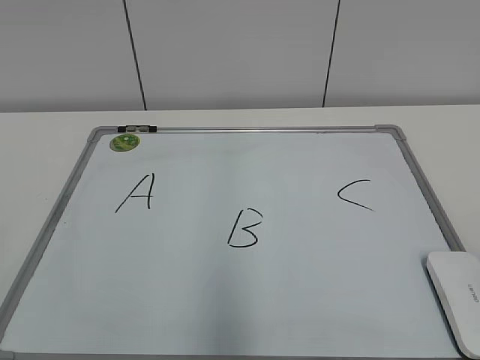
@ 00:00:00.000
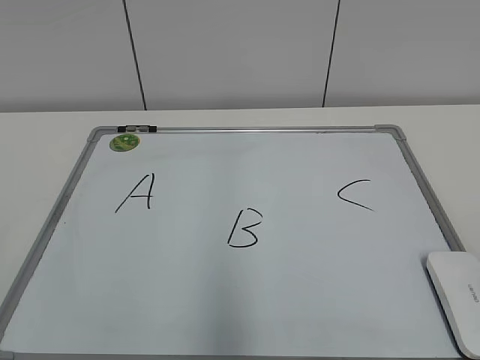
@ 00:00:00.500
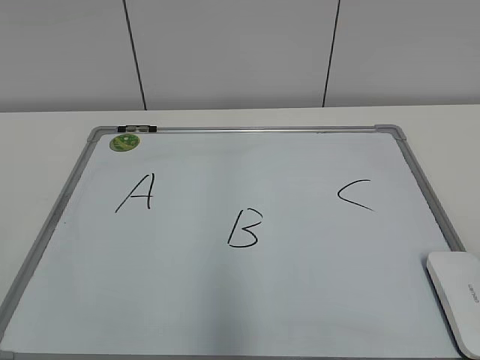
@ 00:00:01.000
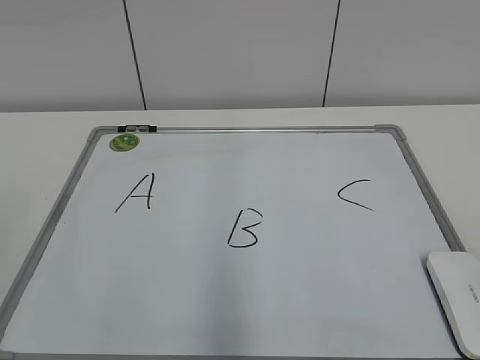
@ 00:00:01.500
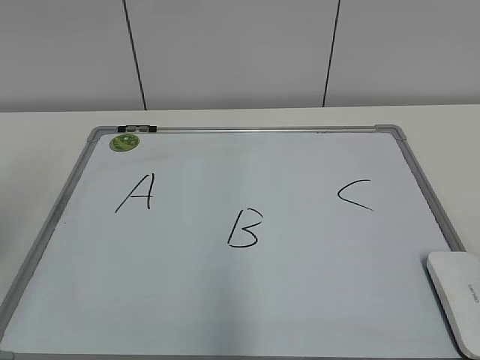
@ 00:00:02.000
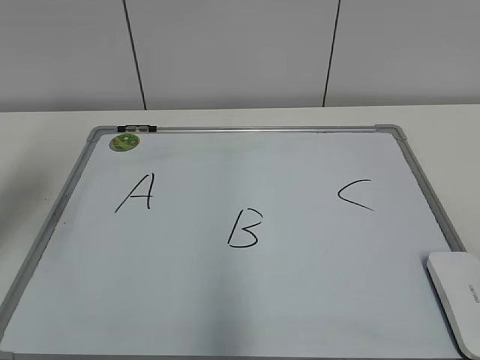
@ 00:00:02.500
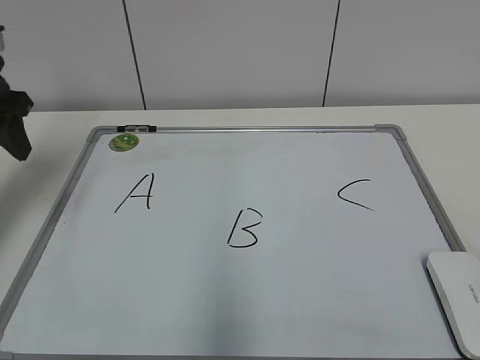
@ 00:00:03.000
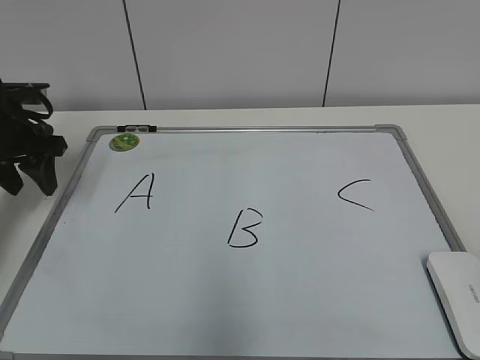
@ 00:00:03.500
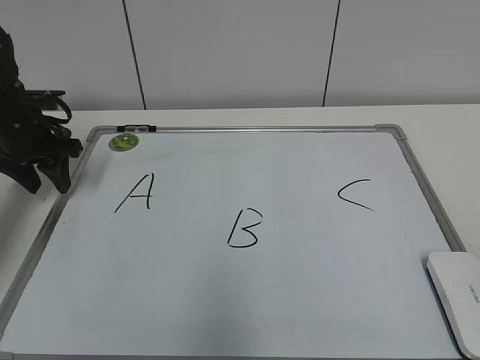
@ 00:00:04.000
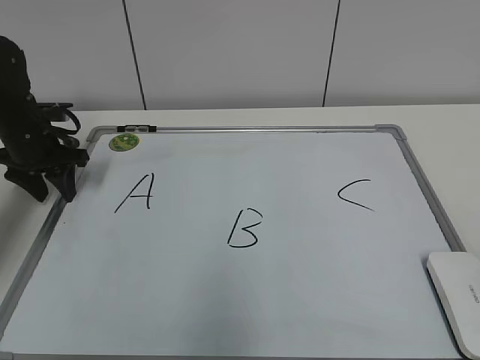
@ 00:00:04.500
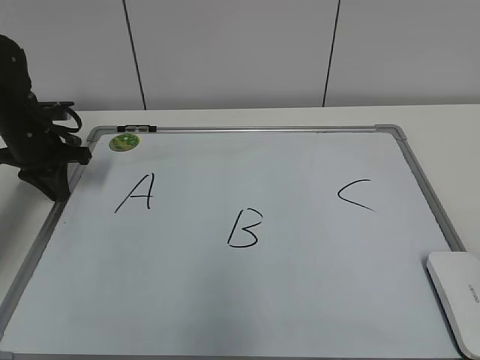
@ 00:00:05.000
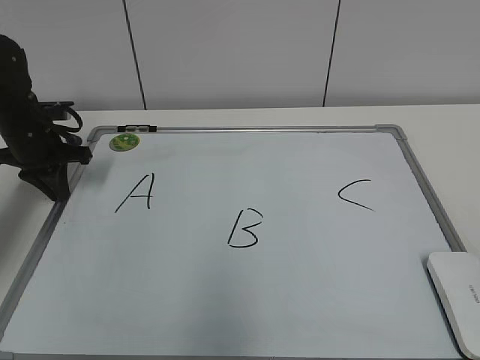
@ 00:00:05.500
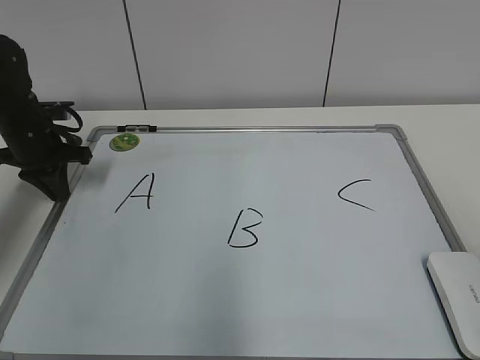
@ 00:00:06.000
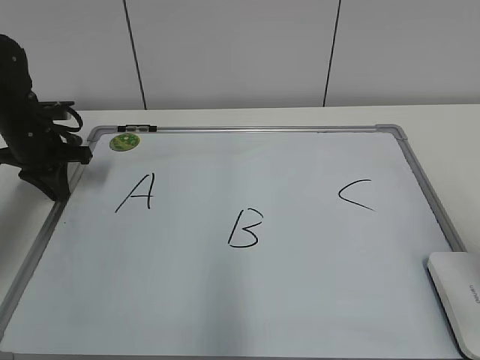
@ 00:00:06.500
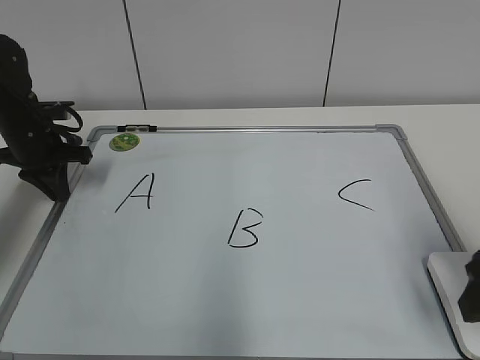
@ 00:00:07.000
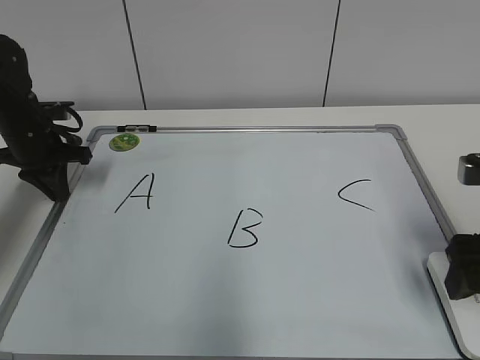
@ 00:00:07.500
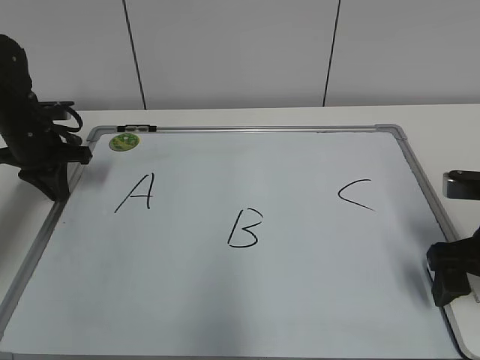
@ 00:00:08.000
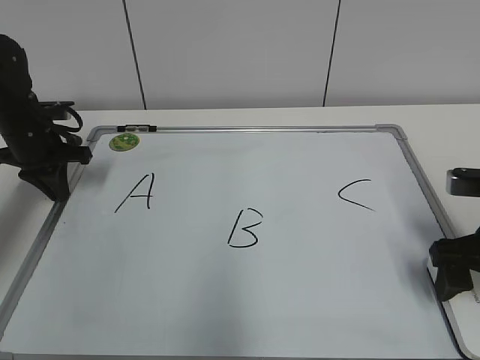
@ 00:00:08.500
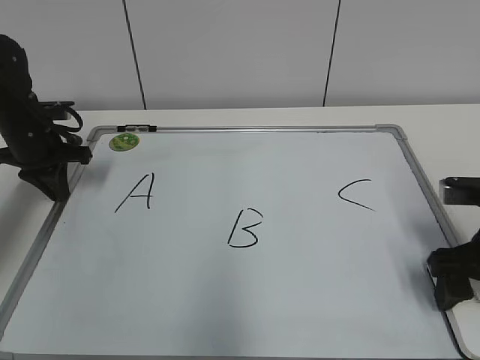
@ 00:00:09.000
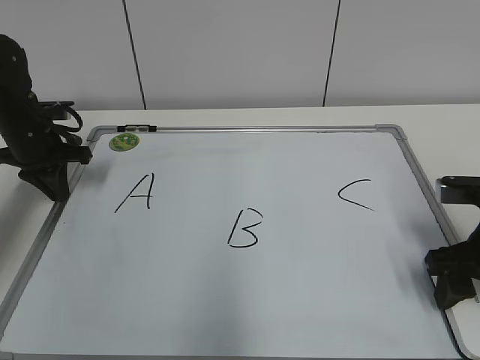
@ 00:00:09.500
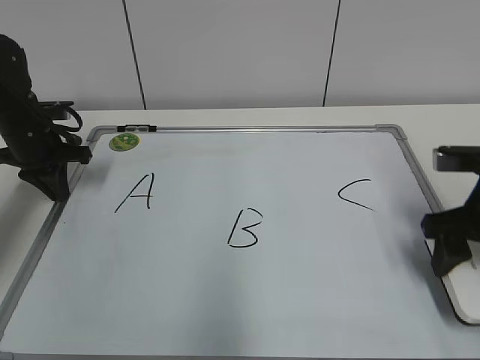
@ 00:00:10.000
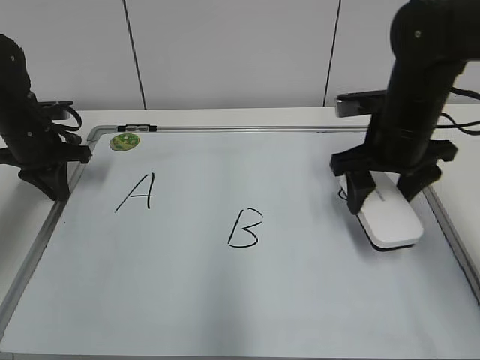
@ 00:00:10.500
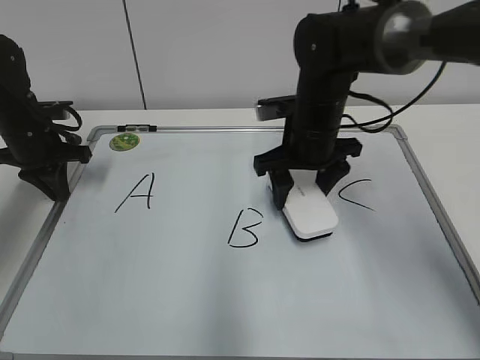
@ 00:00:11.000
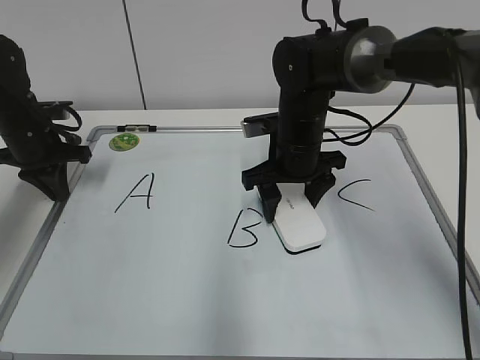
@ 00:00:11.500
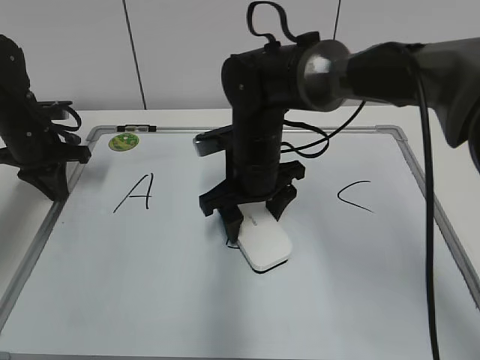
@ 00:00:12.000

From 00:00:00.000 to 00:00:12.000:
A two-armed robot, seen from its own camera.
Task of the whole recording: pick up the eraser on the blackboard and erase the letter "B".
Step, from 00:00:00.000 to 00:00:04.500: Hold the drawing board steady with your left hand.
Step, from 00:00:05.000 to 00:00:09.500: Grab the eraser with your right hand.
From 00:00:02.000 to 00:00:04.000: The left gripper goes some 30 cm forward and downward.
From 00:00:04.000 to 00:00:06.000: The left gripper closes.
From 00:00:06.000 to 00:00:08.000: The right gripper travels forward and downward by approximately 20 cm, and opens its fingers.
From 00:00:08.000 to 00:00:10.000: The right gripper closes its fingers.
From 00:00:10.000 to 00:00:12.000: The right gripper travels to the left by about 25 cm.

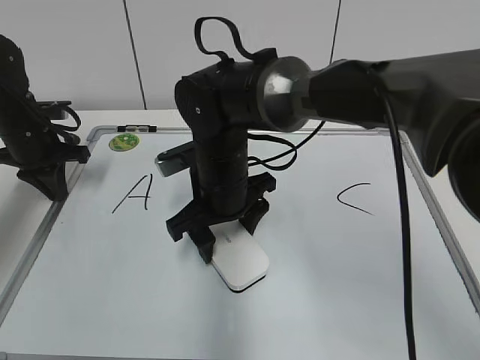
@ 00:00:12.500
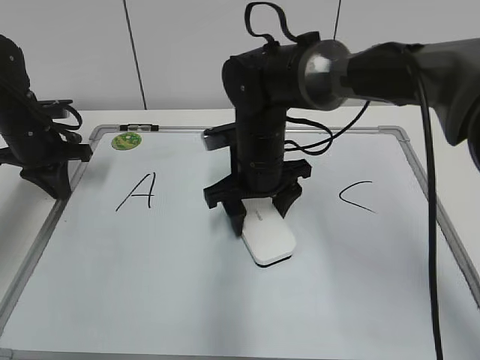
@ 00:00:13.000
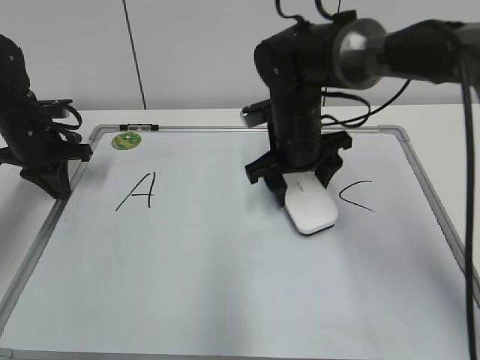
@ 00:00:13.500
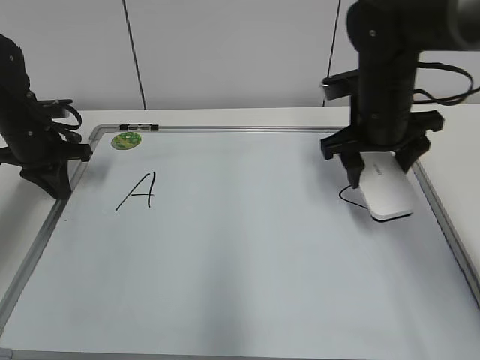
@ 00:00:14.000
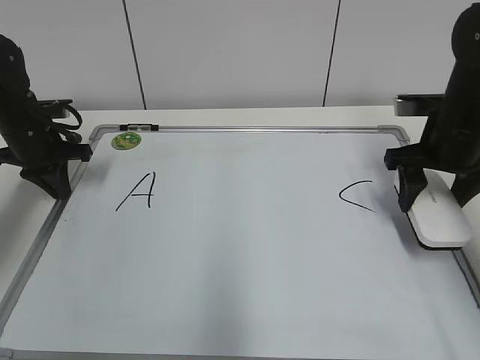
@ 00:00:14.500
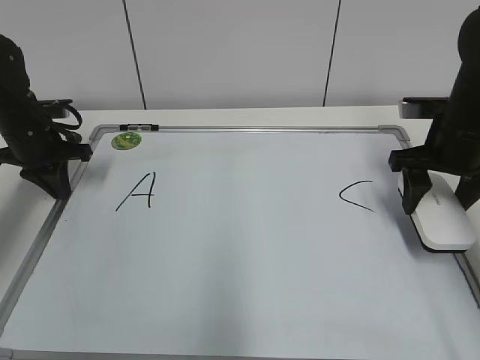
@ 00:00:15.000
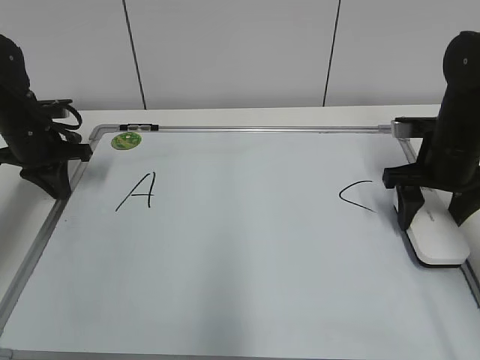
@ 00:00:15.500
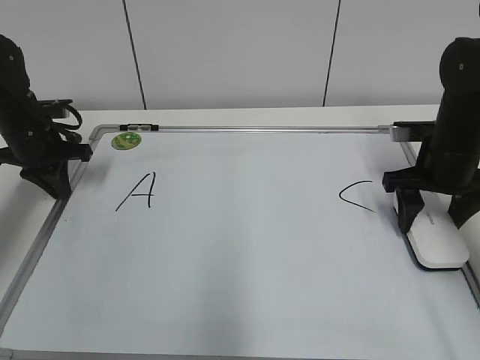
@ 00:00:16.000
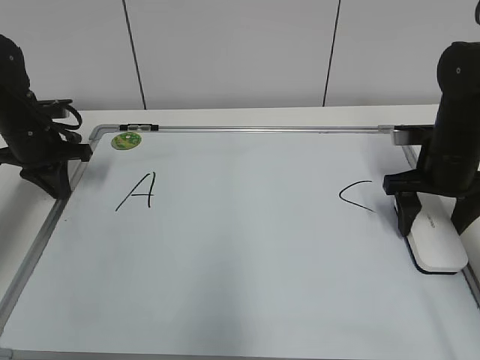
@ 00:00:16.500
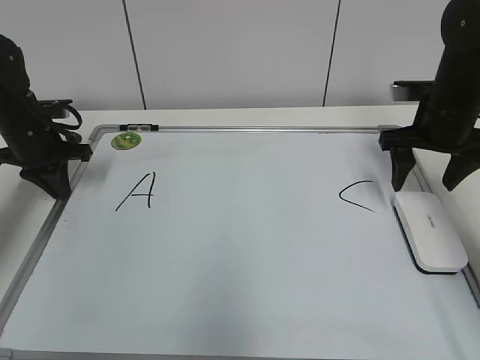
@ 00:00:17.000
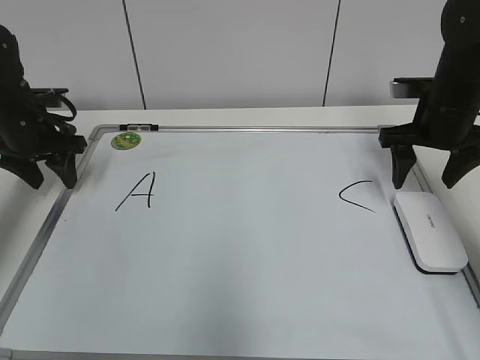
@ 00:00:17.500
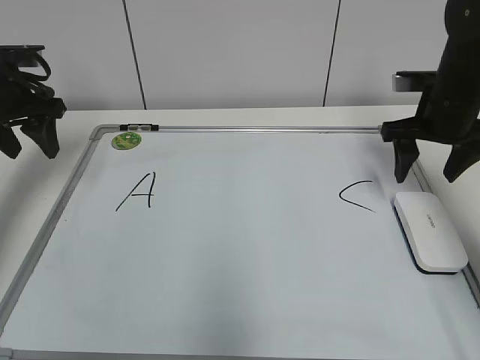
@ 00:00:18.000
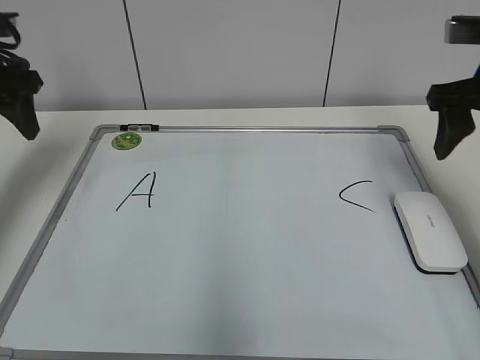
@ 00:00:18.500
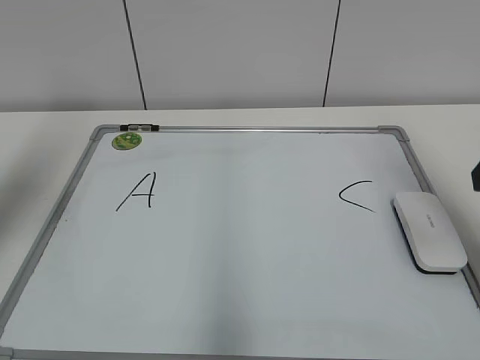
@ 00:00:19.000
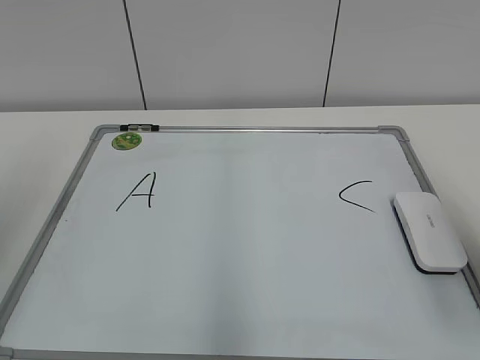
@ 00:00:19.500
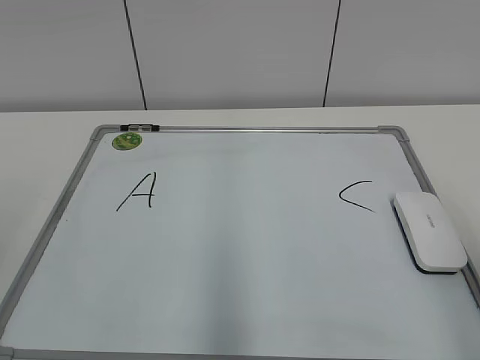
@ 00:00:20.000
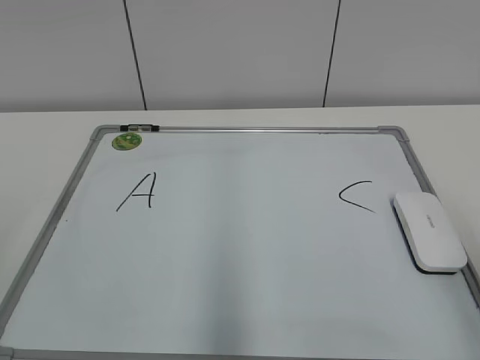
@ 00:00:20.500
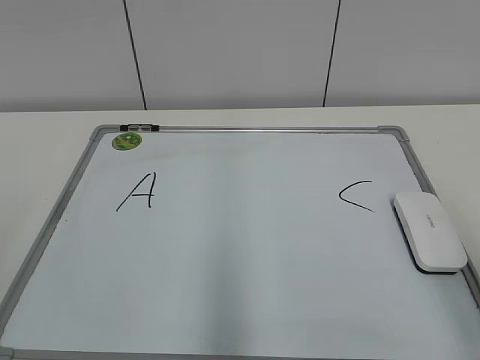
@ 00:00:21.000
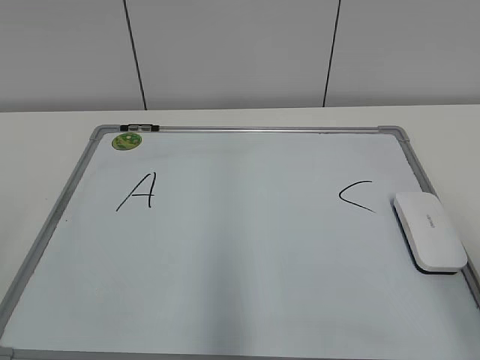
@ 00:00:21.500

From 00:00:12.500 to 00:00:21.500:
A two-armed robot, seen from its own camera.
Task of the whole recording: pick up the eraser on the blackboard and erase the letter "B".
Step, from 00:00:13.500 to 00:00:16.500: Put down the eraser with your right hand.
From 00:00:12.500 to 00:00:14.500: The right gripper heads to the right, covering roughly 25 cm.
From 00:00:14.500 to 00:00:17.000: The right gripper opens.
From 00:00:17.000 to 00:00:19.500: The left gripper heads backward and upward, covering some 35 cm, and opens up, while the right gripper is displaced backward by some 25 cm.

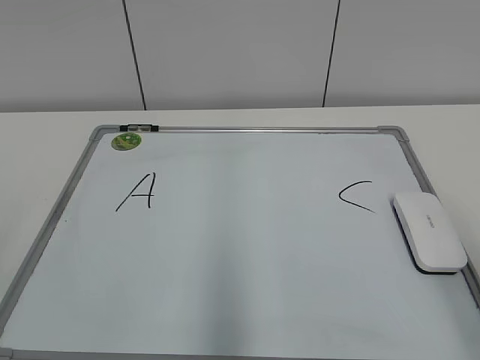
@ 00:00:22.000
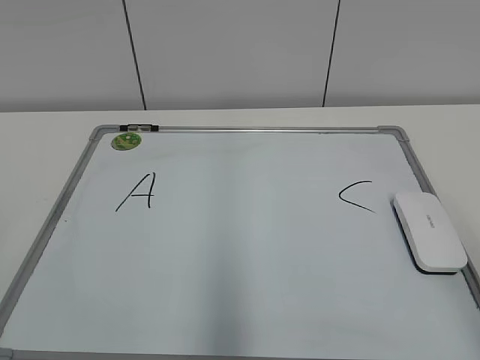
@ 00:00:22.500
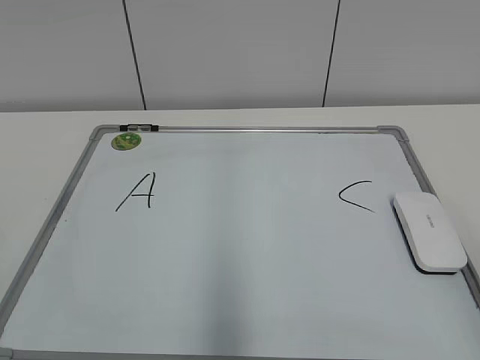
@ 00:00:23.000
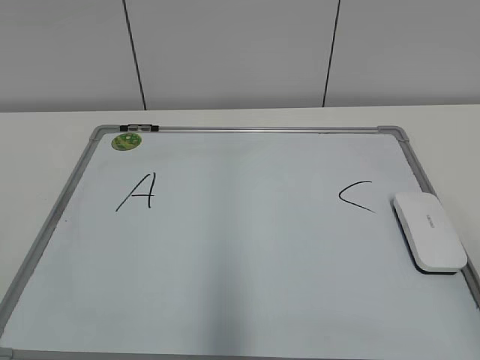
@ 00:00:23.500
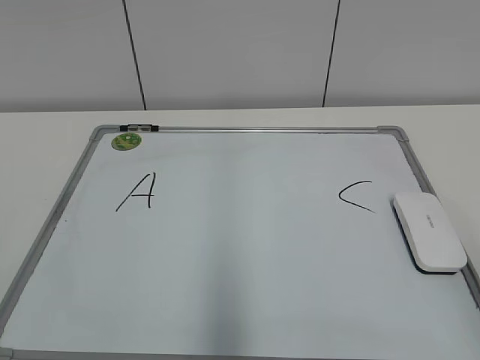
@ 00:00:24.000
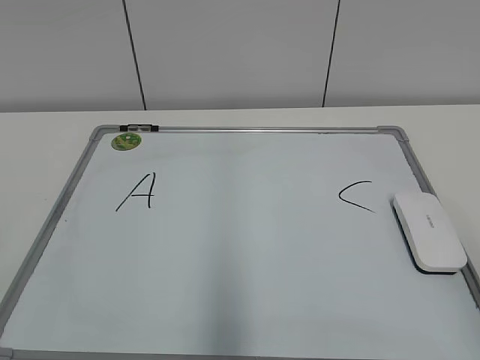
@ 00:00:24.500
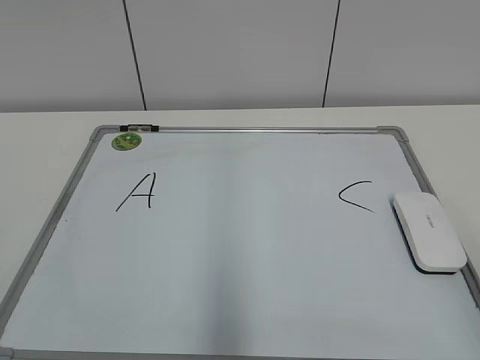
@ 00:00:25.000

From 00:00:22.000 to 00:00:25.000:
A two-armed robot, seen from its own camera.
Task of the whole recording: pick up the eraser on the blackboard and erase the letter "B".
From 00:00:23.500 to 00:00:25.000: The two grippers keep their place.
